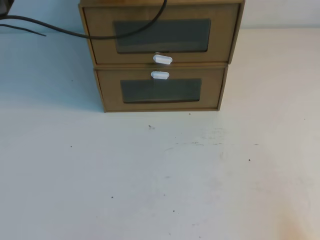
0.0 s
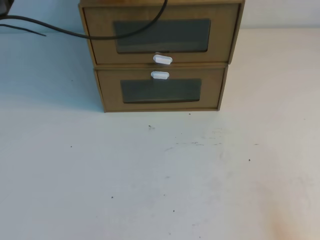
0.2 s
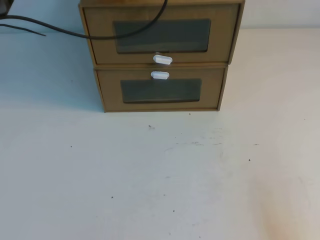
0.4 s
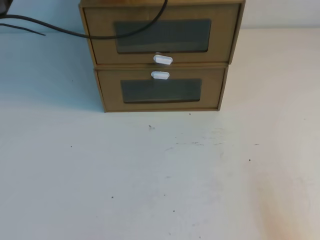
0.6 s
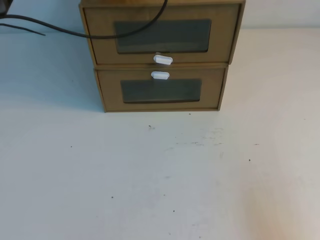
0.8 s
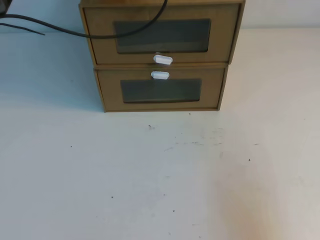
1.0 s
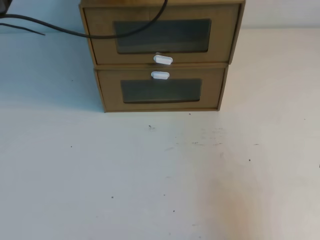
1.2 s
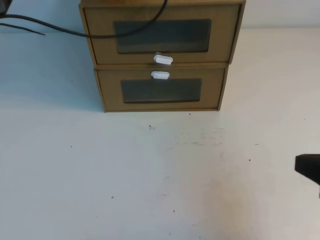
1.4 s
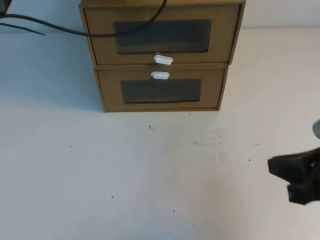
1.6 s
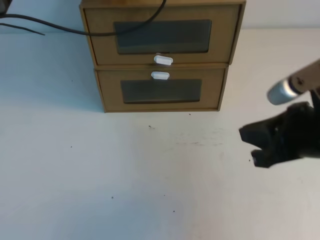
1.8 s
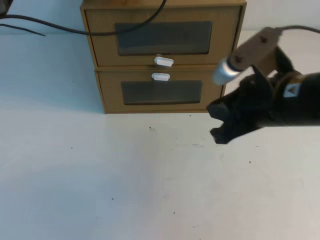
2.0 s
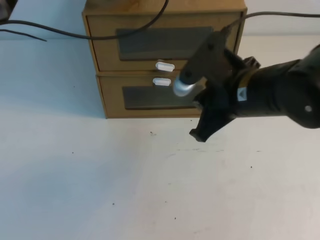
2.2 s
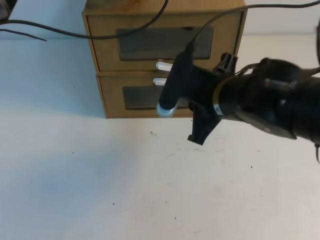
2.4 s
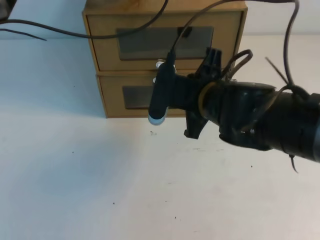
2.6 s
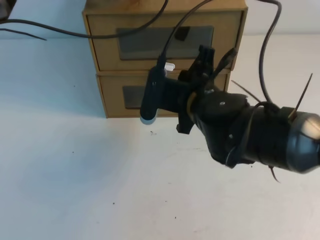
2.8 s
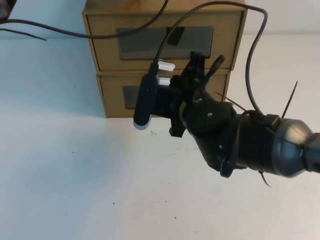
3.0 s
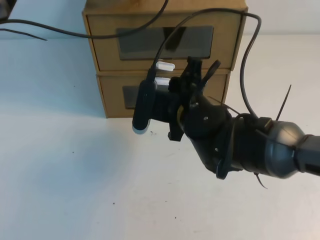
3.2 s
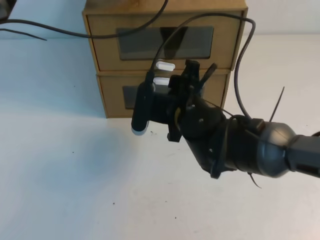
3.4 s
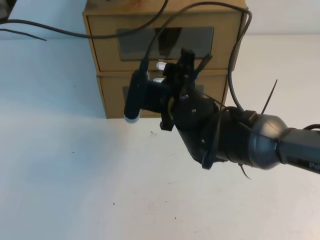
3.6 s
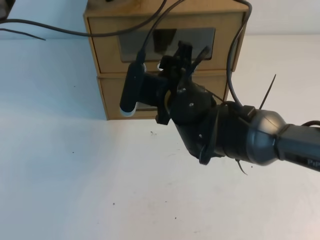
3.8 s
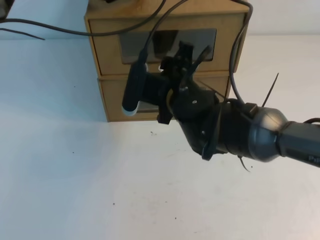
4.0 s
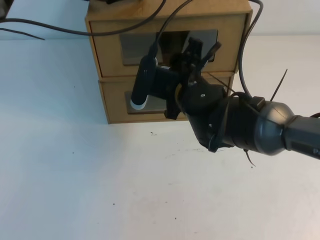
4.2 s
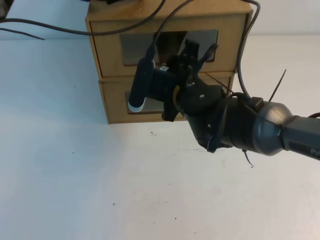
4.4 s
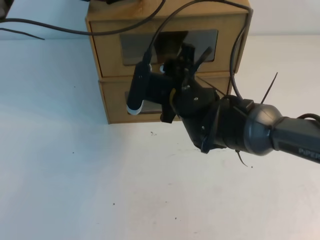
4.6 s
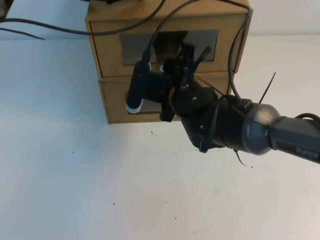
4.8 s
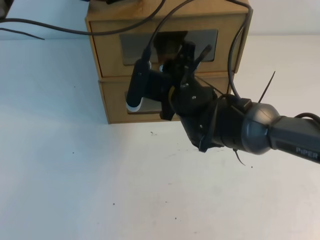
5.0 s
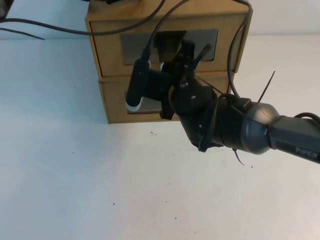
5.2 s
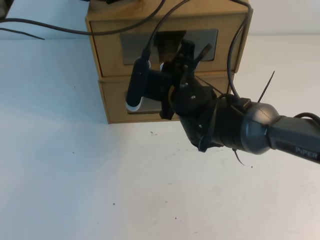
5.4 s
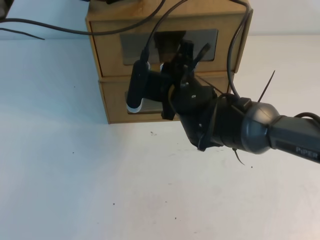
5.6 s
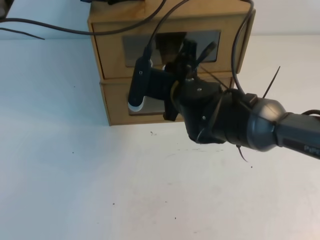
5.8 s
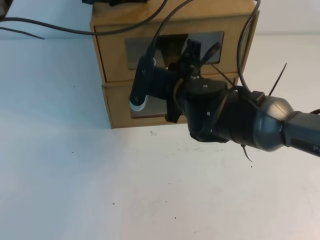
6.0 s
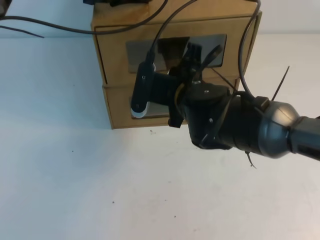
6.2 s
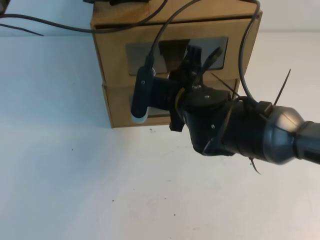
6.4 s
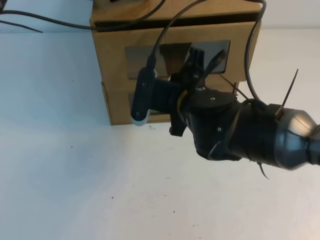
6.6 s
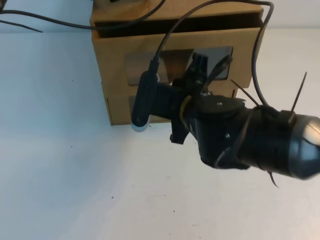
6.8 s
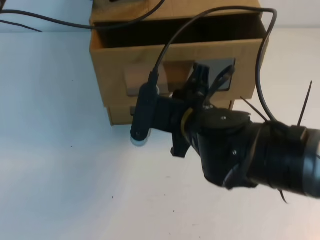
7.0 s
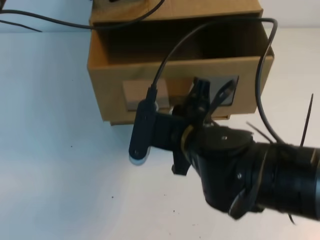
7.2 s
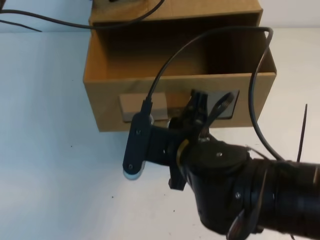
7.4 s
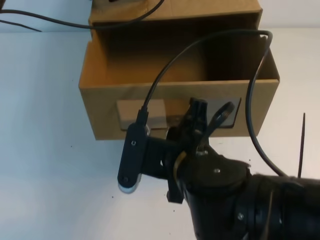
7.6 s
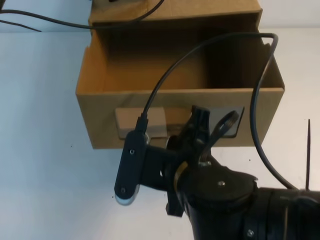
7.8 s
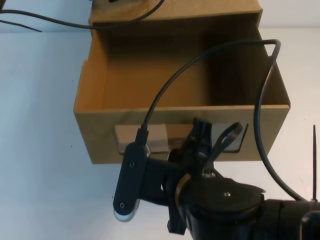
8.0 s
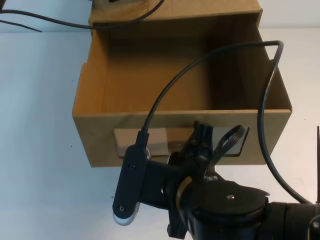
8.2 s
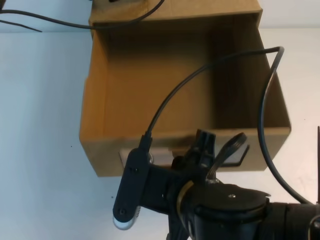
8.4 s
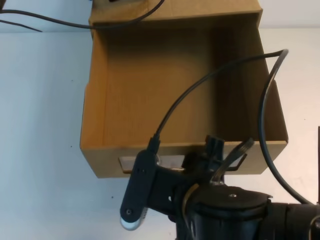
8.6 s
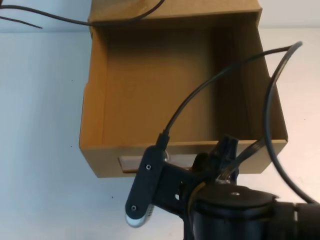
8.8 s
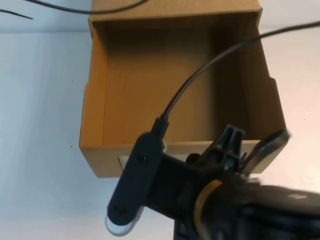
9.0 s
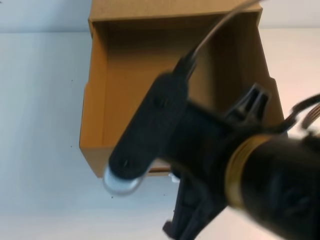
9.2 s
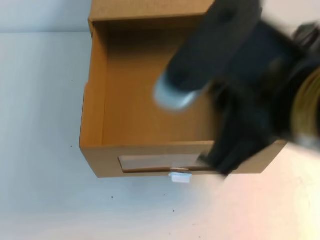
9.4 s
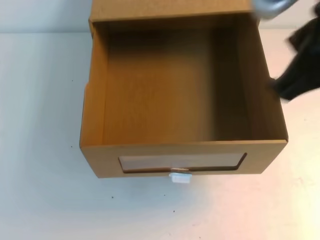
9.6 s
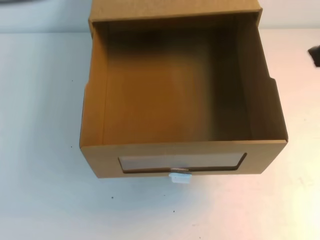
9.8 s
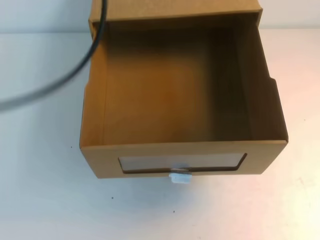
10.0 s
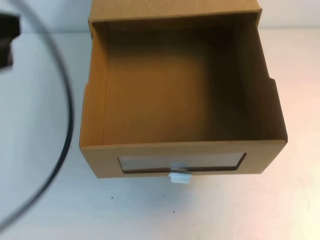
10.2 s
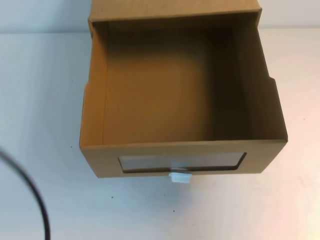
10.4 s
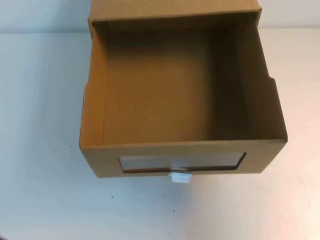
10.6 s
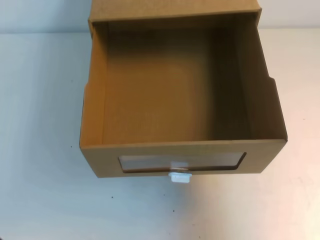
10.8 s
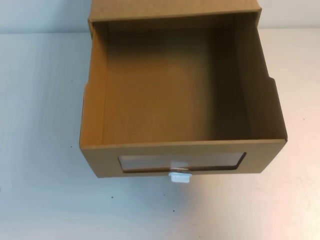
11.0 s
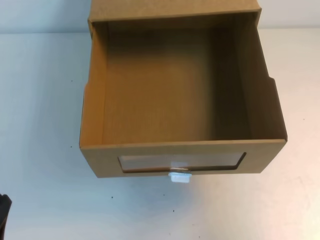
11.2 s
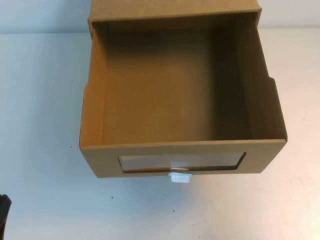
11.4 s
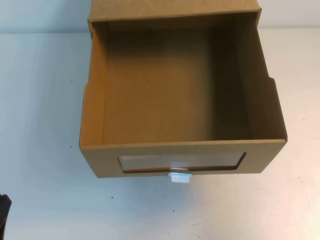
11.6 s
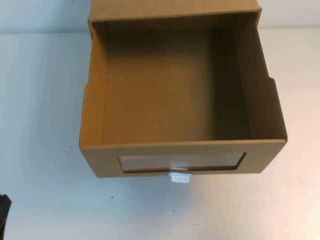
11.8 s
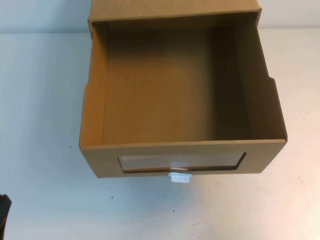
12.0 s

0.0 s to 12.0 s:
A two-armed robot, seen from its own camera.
Task of the whole recording: open the shoebox on the table.
0.0 to 1.6 s: The right gripper moves upward, forward and to the left, some 15 cm.
1.6 to 3.0 s: The right gripper moves to the left and forward, some 25 cm.
3.0 to 4.4 s: The right gripper opens up.
4.4 to 6.0 s: The right gripper closes.
6.0 to 7.6 s: The right gripper travels backward by approximately 15 cm.
7.6 to 9.0 s: The right gripper is displaced backward by about 10 cm, and opens.
9.0 to 10.4 s: The left gripper goes approximately 30 cm backward. Meanwhile the right gripper shifts approximately 25 cm to the right and forward, and closes up.
10.4 to 12.0 s: The left gripper moves downward, some 25 cm, while the right gripper is displaced backward and downward by about 15 cm.

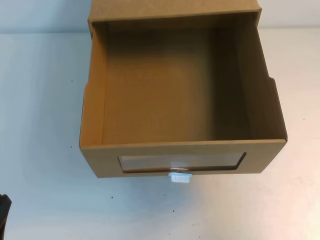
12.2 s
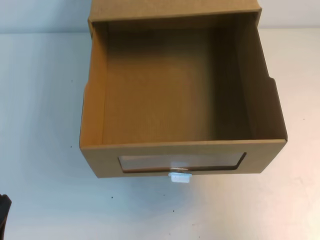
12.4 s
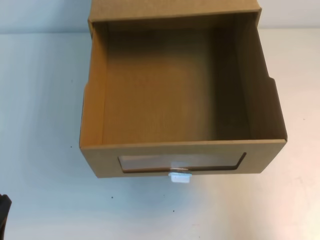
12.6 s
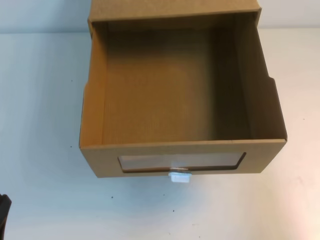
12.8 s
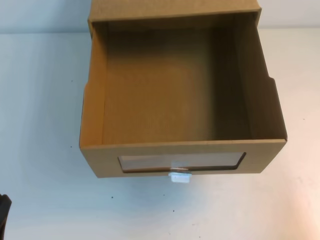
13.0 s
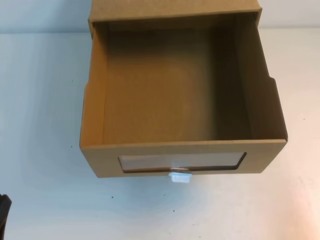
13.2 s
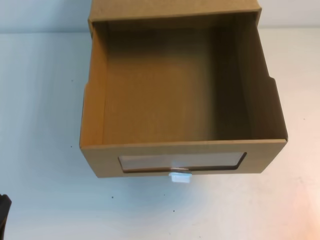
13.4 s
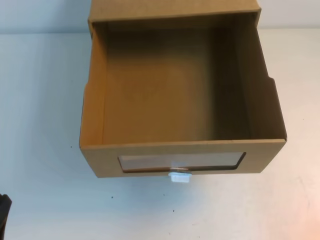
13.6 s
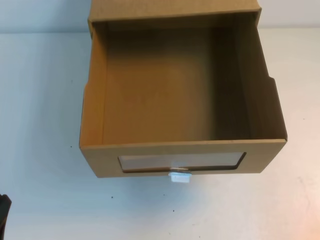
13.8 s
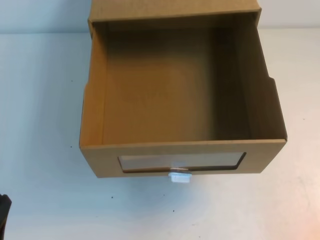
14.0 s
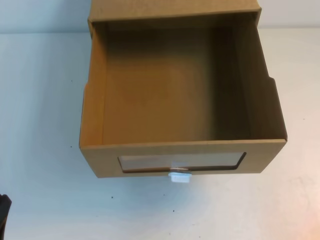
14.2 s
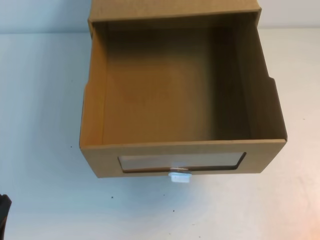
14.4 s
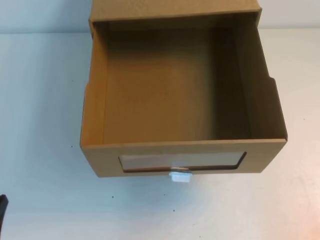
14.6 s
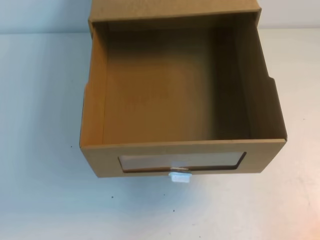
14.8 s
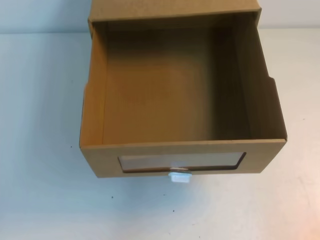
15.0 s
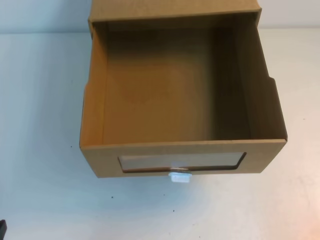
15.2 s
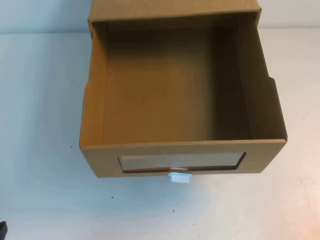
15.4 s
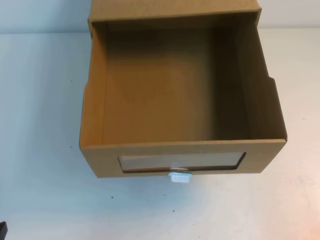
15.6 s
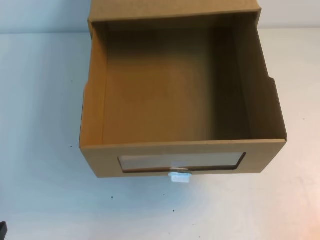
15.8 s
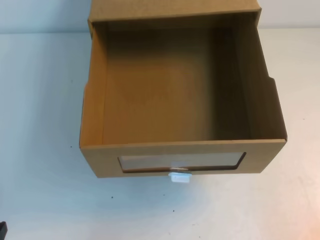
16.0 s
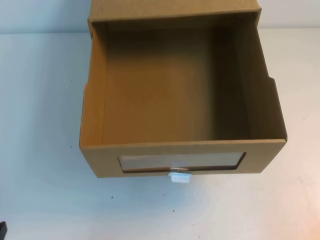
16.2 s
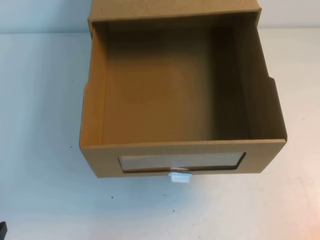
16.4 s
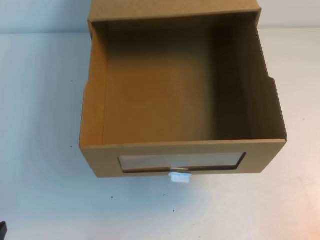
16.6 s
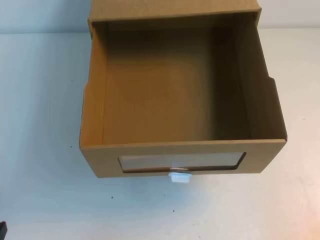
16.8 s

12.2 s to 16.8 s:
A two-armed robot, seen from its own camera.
Task of the whole recording: open the shoebox on the table.
Step, 12.2 to 16.8 s: Open the shoe box.
12.2 to 13.8 s: The right gripper shifts approximately 20 cm downward and backward.
